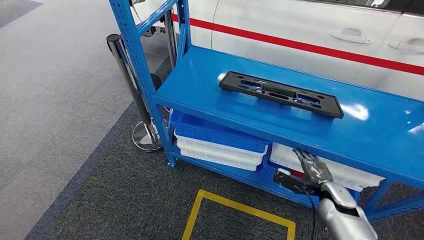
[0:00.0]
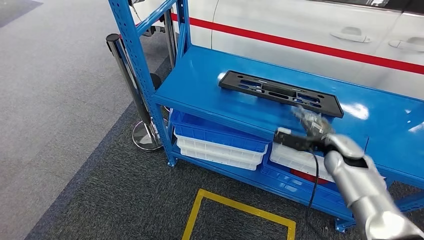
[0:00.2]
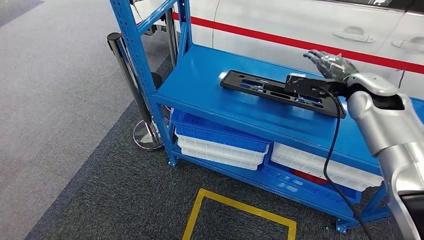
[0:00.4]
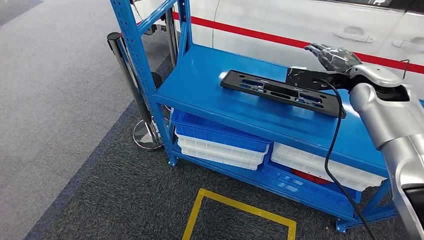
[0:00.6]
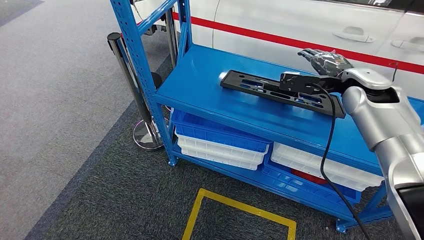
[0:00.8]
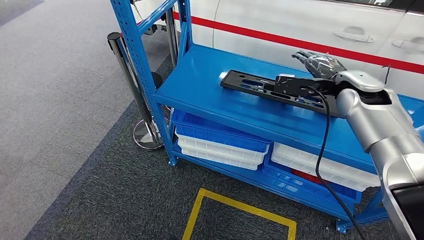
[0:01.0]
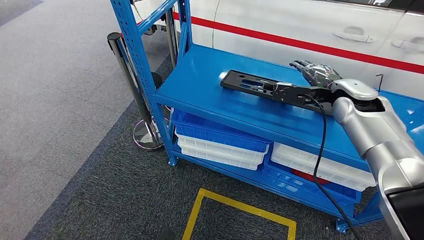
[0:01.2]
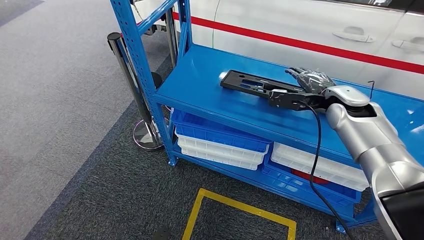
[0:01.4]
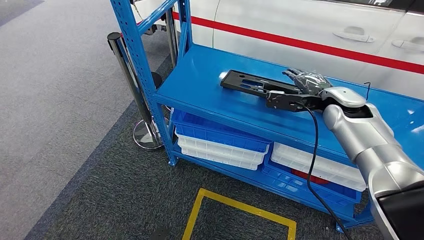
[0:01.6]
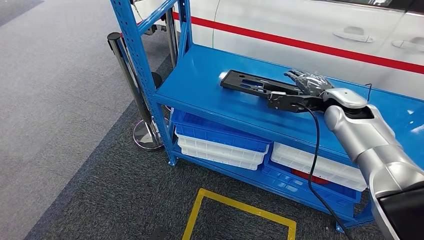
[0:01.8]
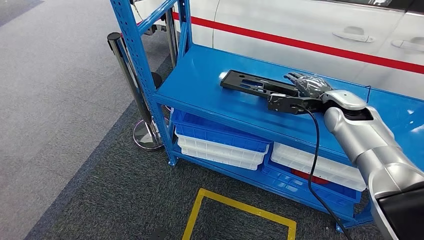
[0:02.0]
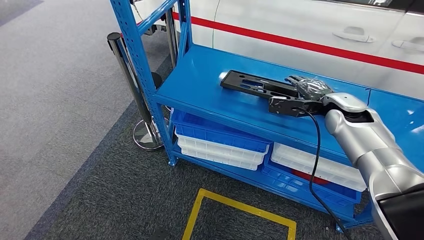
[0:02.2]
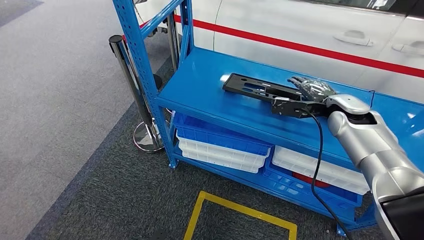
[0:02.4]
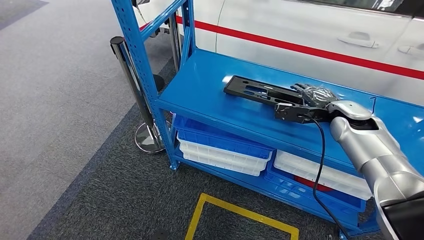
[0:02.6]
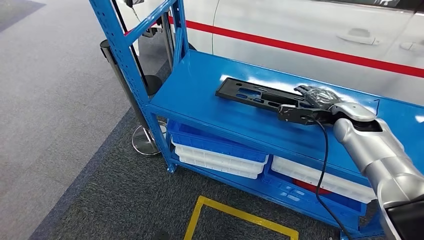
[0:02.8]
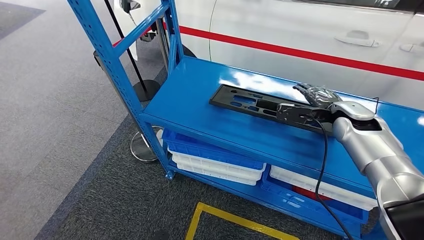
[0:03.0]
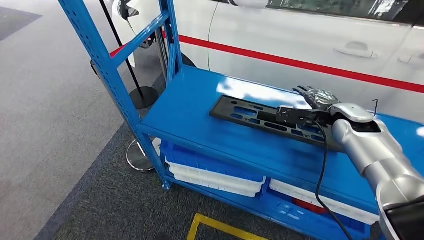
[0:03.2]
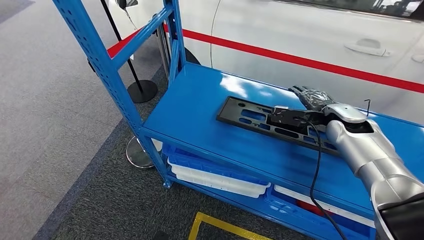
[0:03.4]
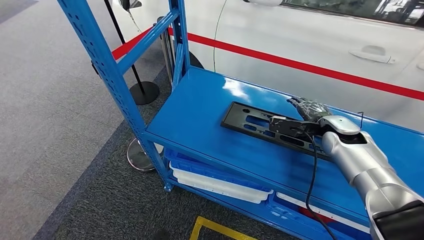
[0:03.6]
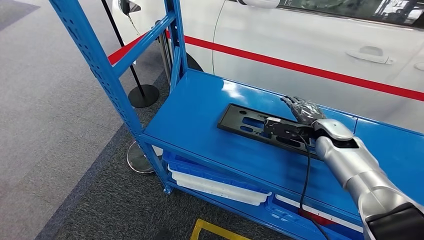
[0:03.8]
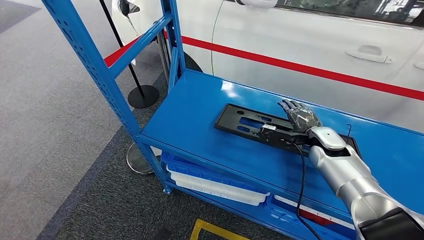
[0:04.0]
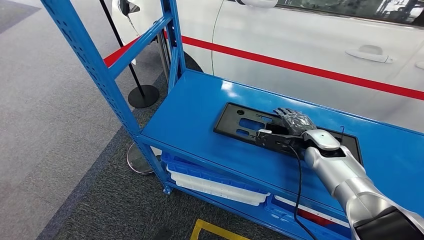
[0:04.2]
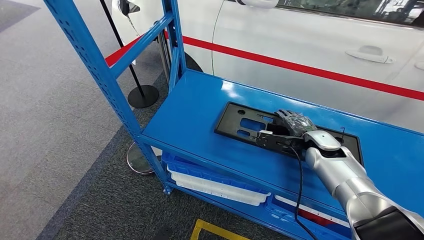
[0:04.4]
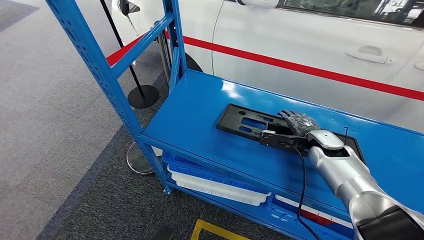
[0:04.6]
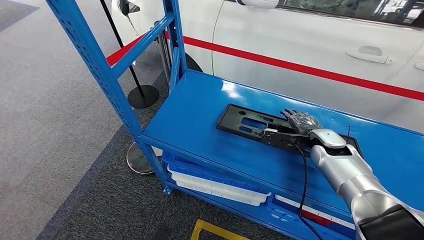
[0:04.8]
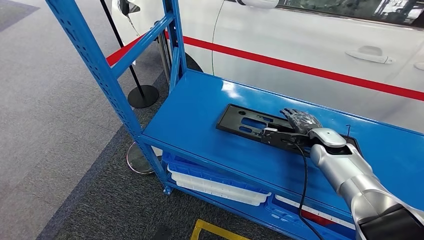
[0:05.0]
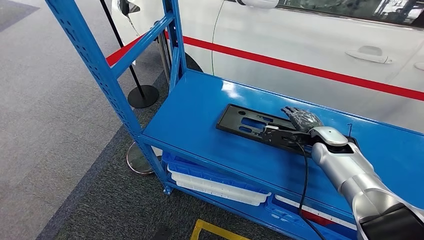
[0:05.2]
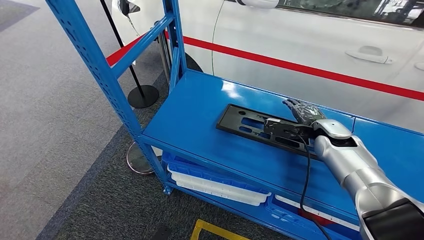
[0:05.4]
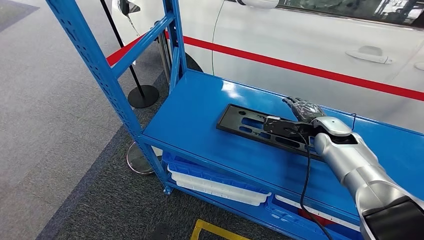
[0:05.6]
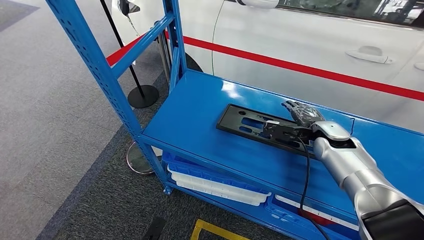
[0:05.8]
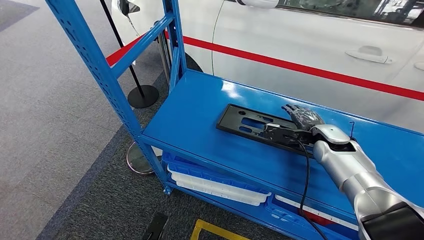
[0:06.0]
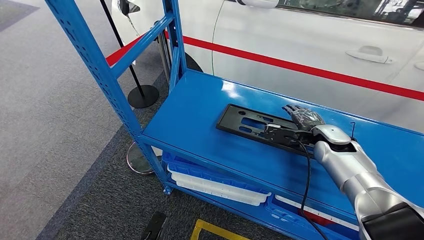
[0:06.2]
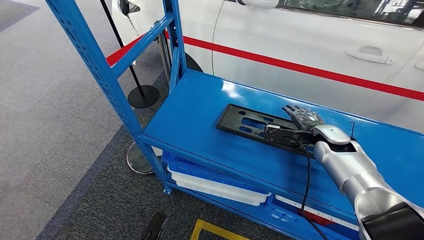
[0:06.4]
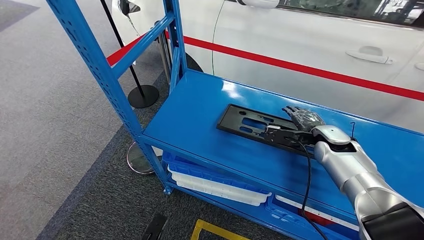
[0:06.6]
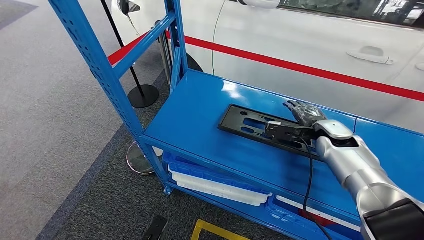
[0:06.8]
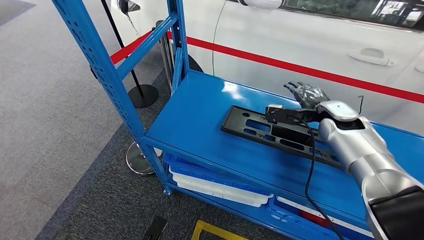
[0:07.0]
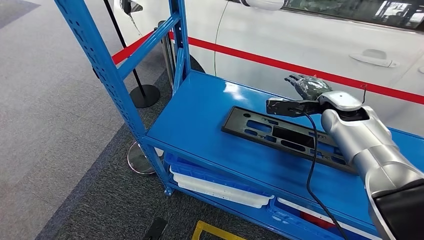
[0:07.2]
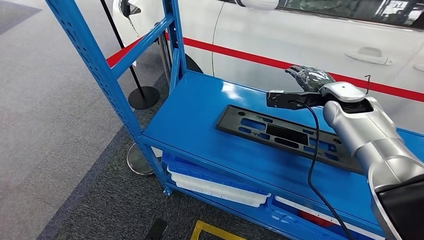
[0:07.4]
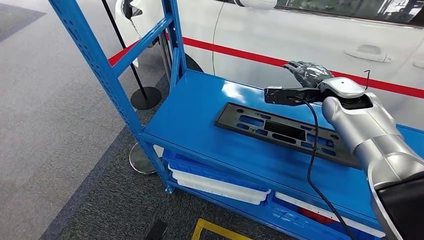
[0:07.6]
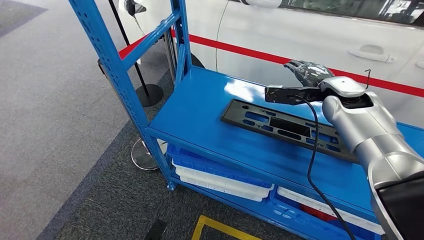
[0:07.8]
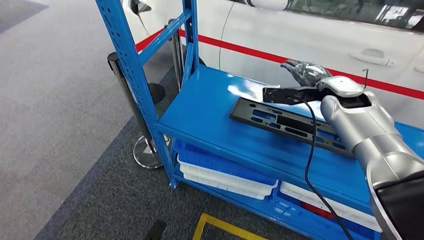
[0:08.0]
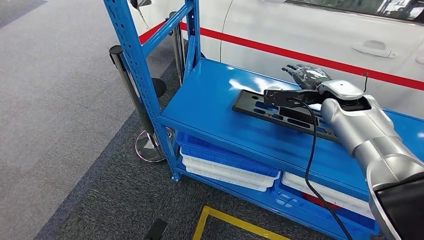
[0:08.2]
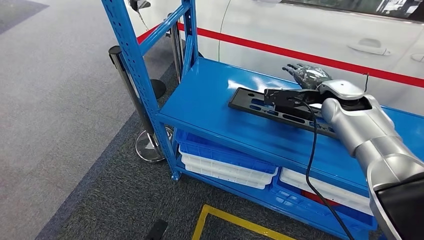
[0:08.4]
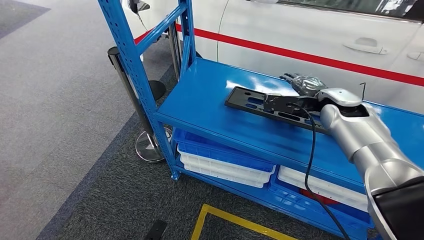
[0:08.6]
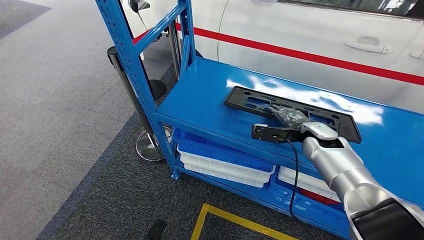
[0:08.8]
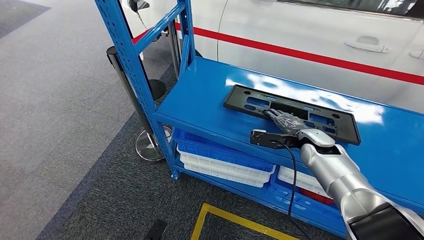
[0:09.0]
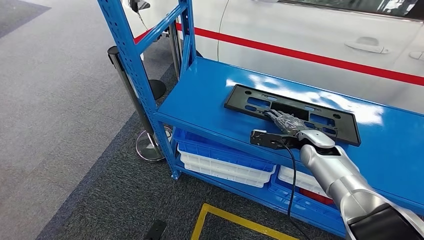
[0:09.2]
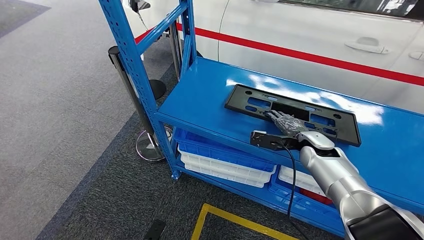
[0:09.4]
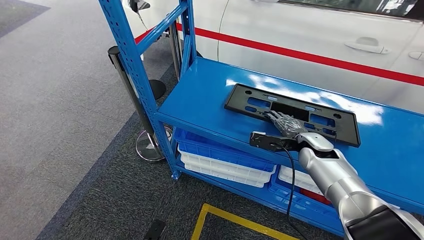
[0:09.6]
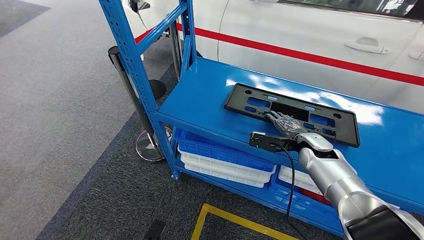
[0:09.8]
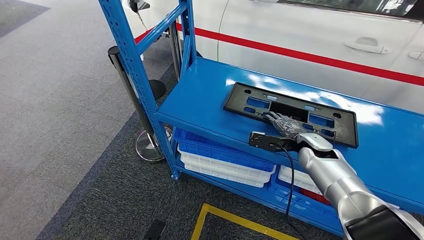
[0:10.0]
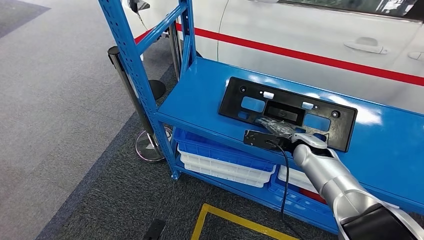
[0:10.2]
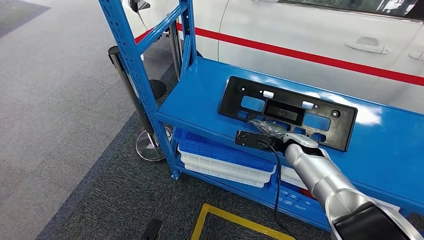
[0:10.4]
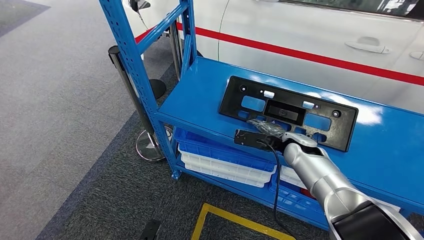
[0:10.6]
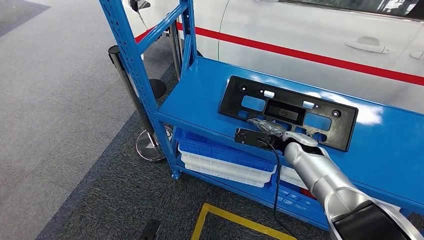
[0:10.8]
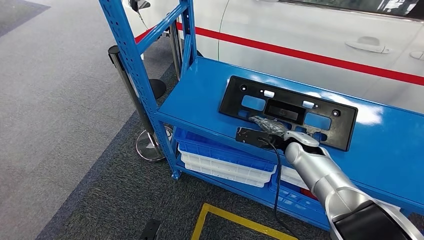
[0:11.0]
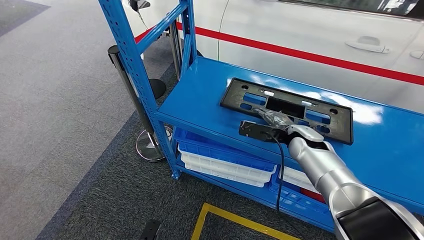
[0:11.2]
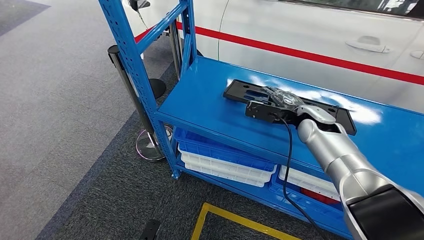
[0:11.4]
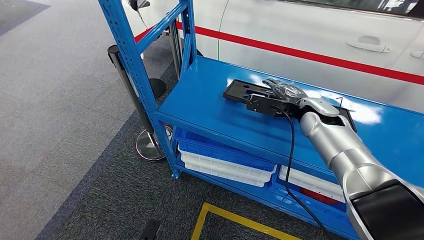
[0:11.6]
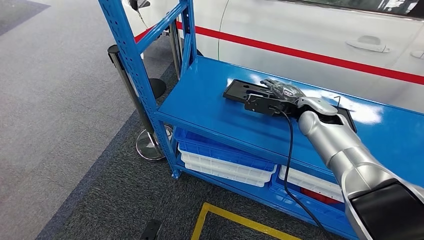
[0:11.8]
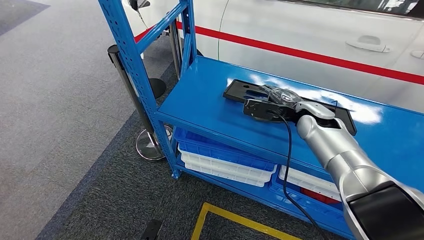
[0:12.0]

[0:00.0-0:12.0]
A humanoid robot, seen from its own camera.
0:09.0 to 0:10.4: The hands make only small movements.
0:10.4 to 0:12.0: The right hand travels upward by approximately 10 cm.

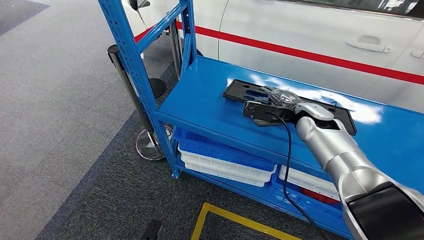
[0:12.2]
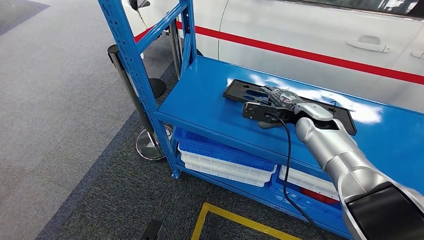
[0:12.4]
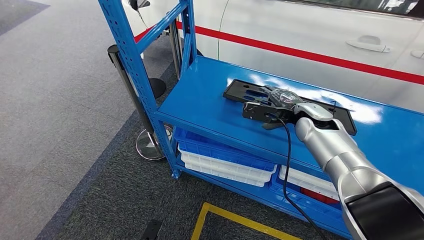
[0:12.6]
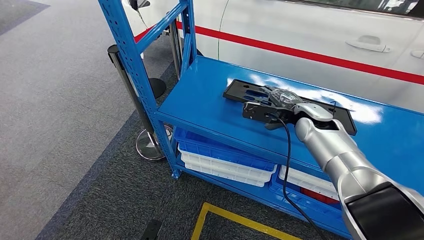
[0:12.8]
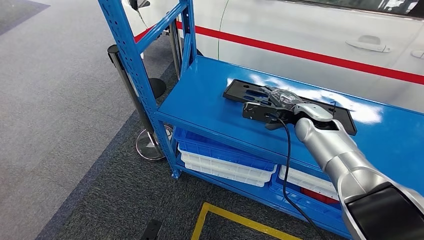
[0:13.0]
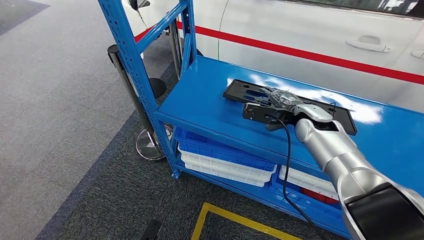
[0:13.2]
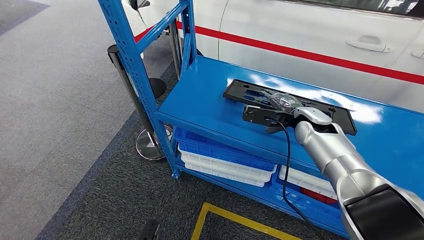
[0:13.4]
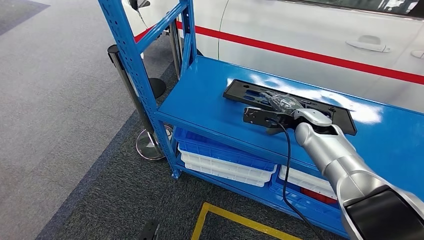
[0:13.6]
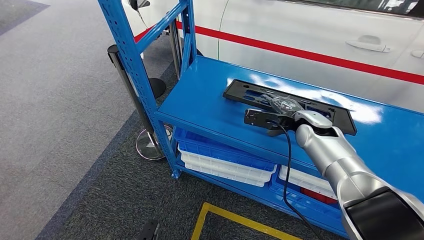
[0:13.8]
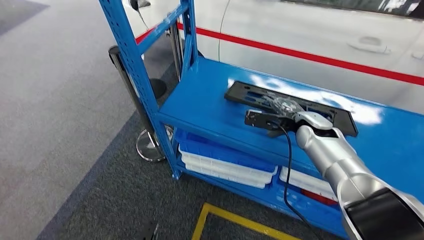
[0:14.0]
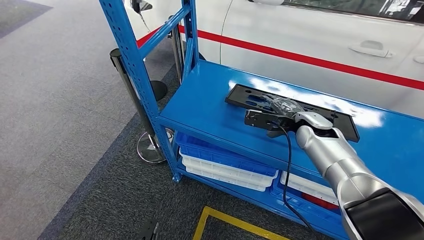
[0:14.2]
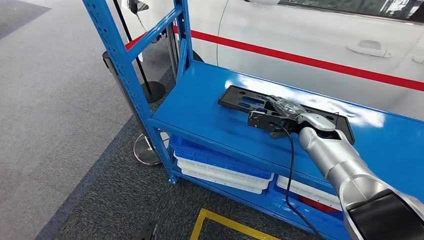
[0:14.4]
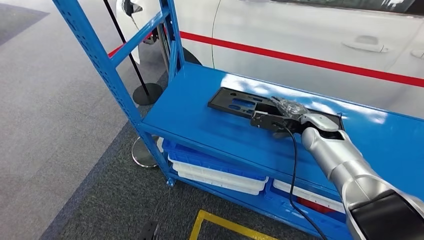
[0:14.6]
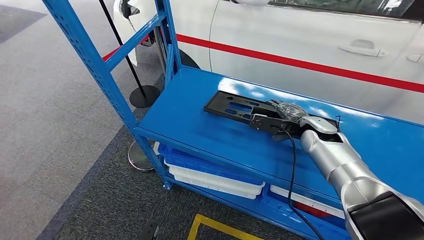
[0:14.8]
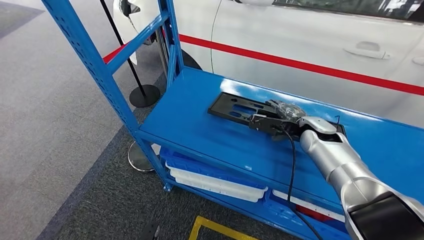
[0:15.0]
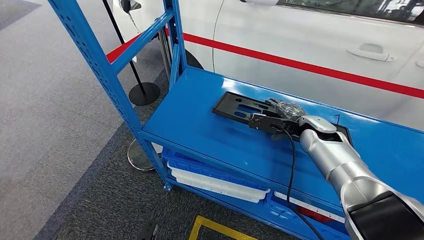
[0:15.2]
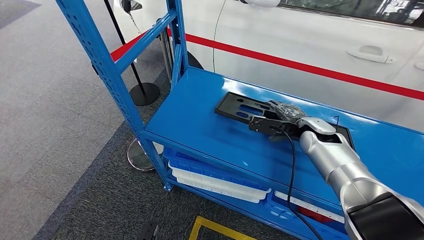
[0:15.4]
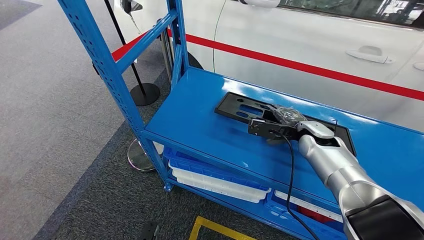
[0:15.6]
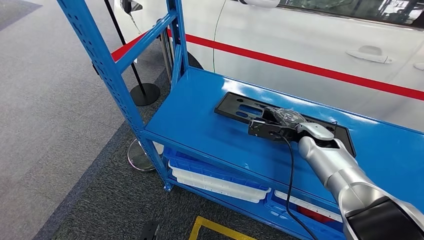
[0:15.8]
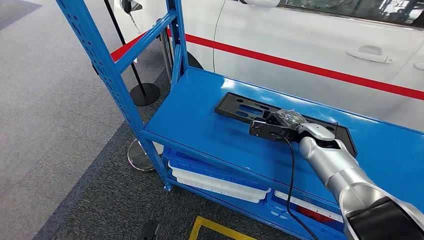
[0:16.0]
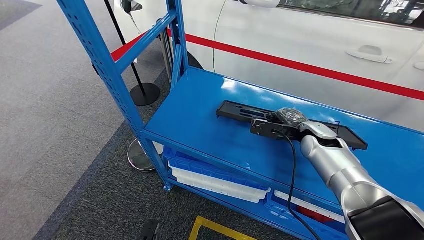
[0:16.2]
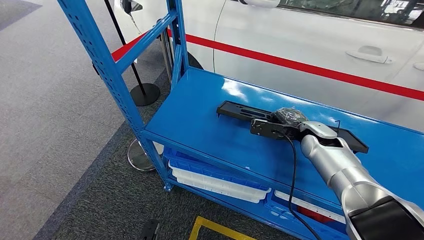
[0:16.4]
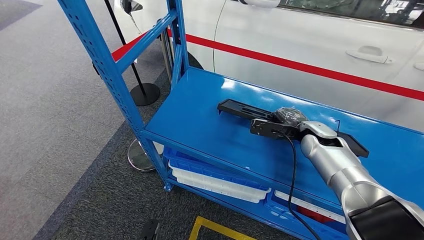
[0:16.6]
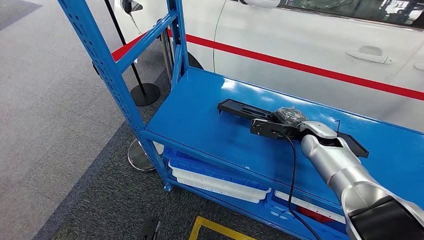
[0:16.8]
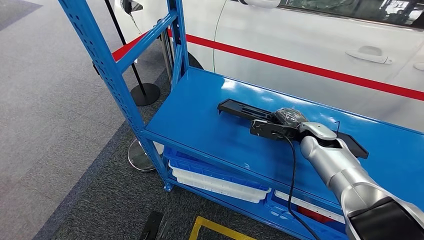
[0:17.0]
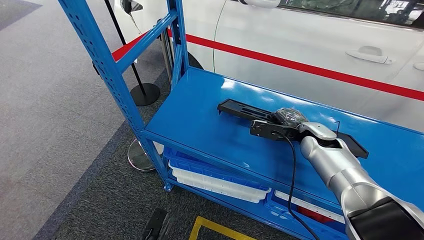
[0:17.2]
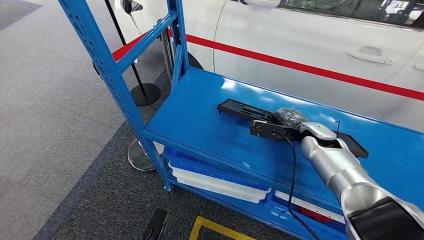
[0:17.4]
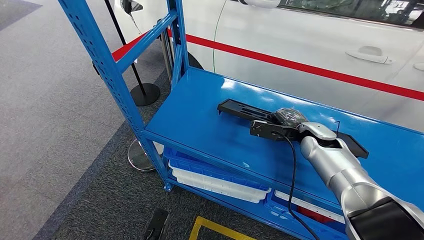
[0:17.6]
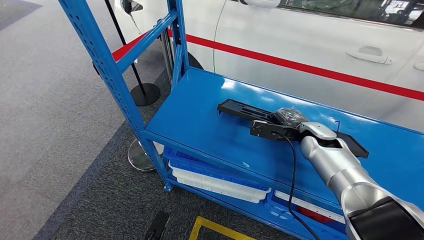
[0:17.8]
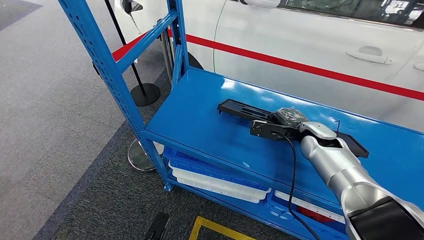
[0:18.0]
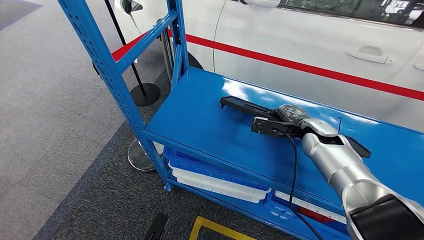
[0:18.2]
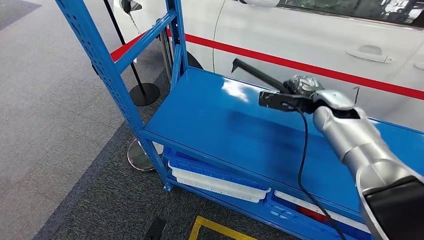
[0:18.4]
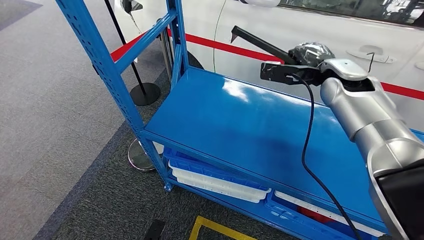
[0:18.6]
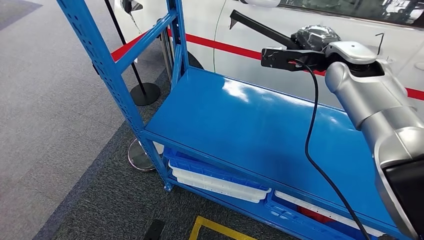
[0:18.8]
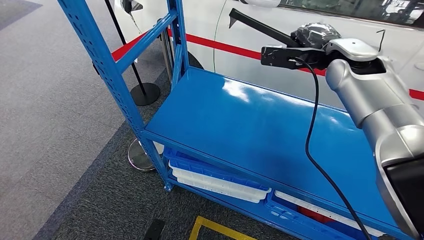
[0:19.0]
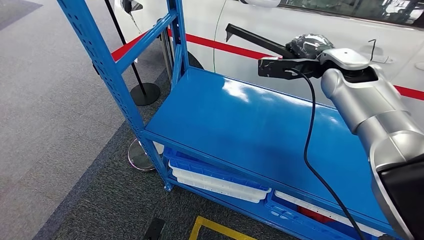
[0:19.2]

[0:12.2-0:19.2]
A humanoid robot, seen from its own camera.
0:12.2 to 0:13.6: The hands make only small movements.
0:15.0 to 0:16.4: There are only small adjustments of the hands.
0:16.4 to 0:17.8: The hands stay close to where they were, moving slightly.
